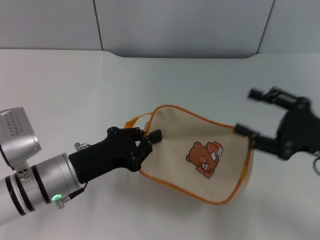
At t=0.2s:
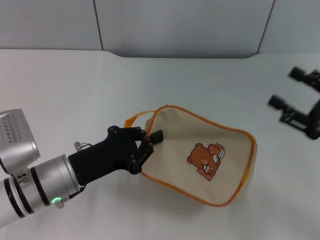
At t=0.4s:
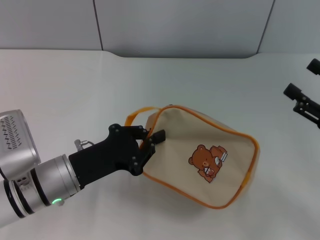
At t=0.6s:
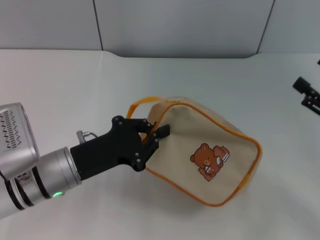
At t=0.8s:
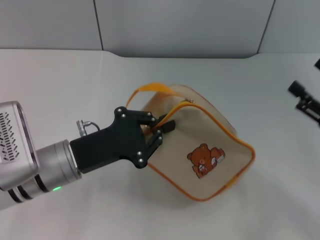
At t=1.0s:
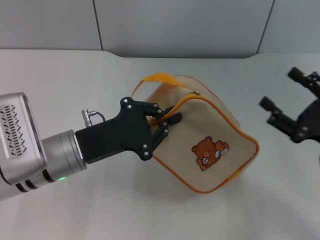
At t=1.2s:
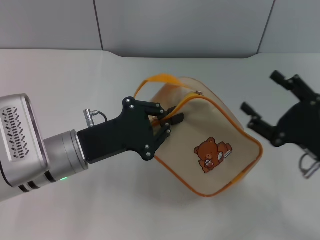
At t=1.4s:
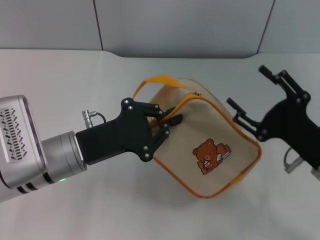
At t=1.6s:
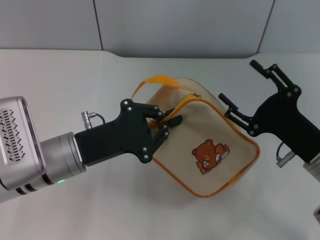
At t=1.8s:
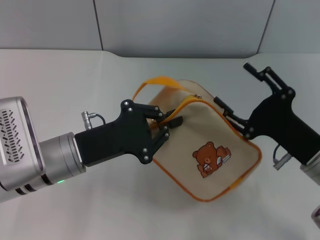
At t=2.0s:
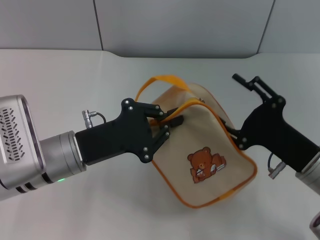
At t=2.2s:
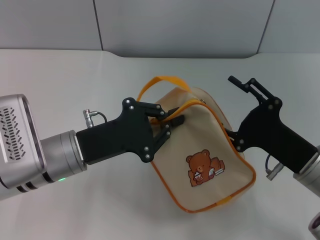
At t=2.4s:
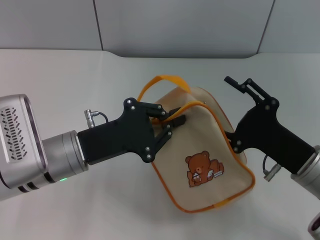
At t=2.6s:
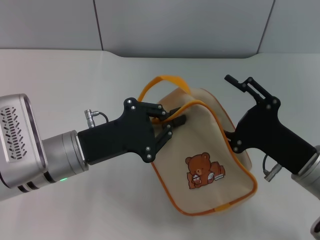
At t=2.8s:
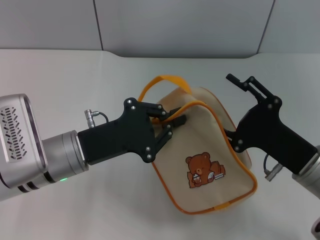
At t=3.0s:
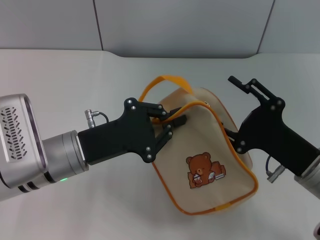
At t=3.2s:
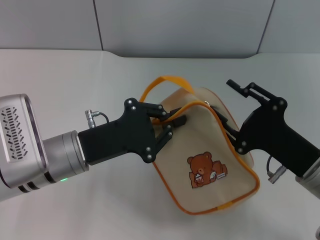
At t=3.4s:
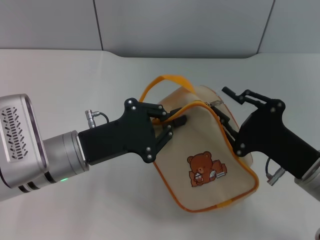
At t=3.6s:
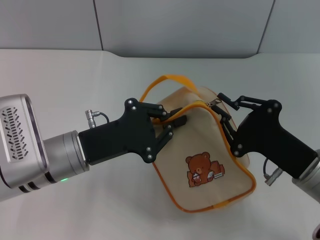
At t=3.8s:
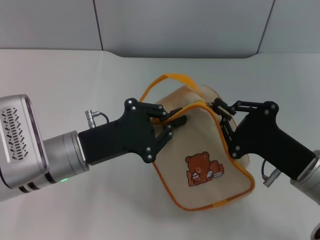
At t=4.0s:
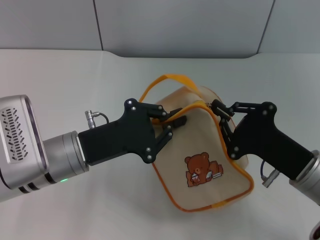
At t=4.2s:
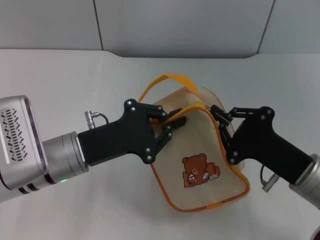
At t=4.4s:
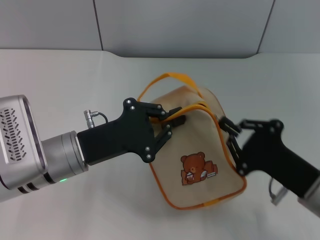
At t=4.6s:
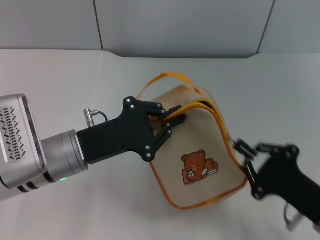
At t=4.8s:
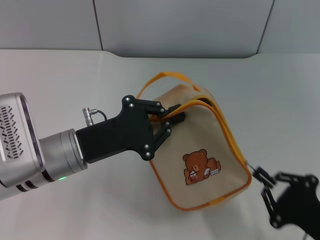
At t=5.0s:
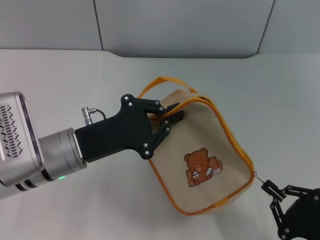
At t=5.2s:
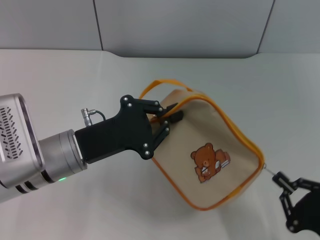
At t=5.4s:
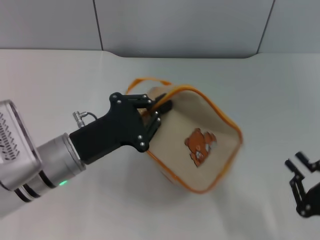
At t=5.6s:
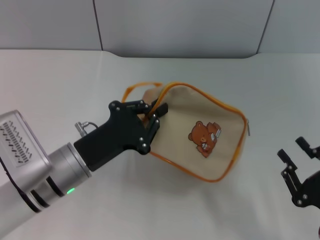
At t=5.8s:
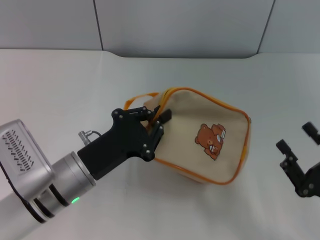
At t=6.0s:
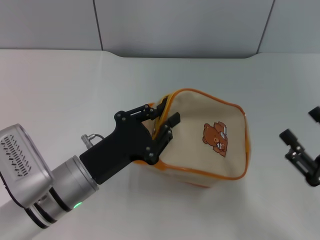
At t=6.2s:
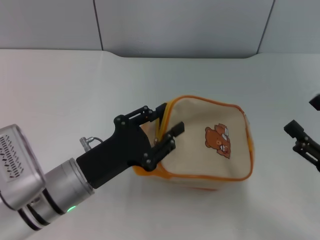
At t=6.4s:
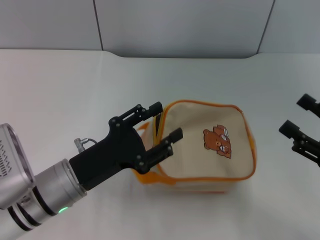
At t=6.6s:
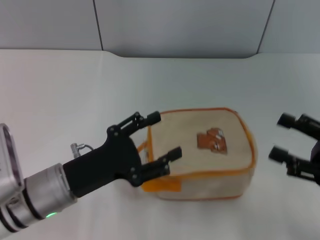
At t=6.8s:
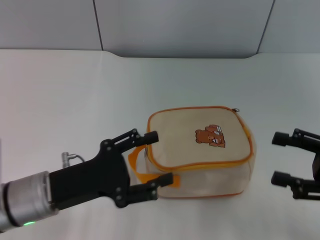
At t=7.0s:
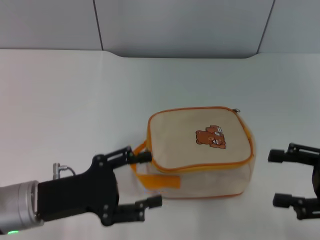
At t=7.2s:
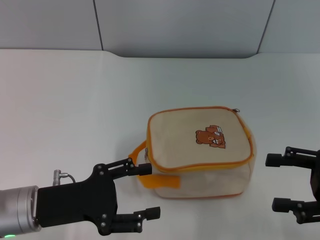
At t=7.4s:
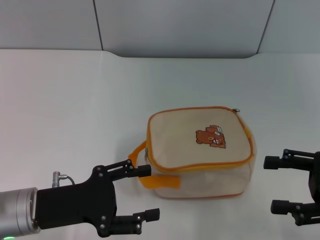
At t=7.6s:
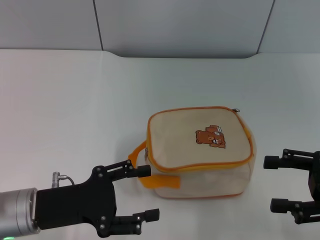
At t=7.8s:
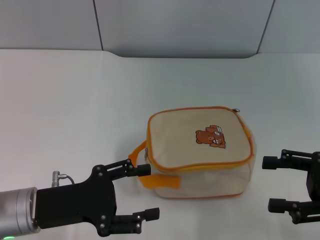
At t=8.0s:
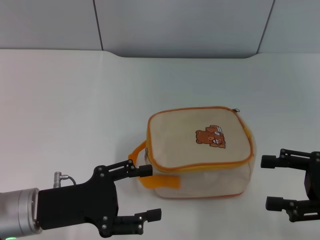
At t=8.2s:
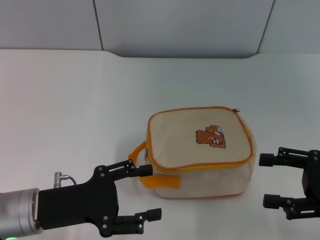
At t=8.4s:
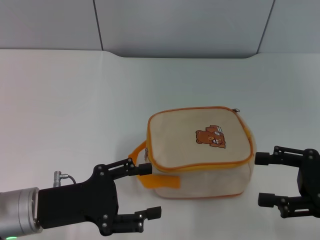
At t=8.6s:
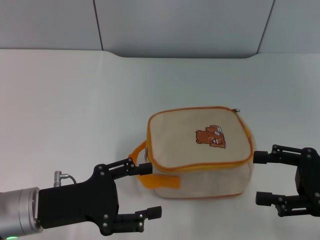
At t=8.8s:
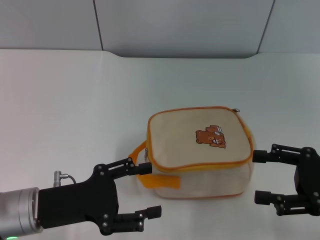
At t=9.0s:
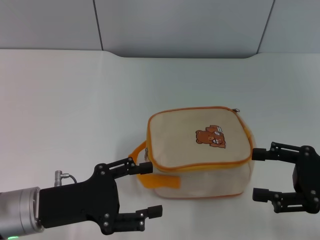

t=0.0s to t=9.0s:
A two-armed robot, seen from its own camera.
Step, t=1.8s to t=5.2s: Unzip the zipper of bag with right gripper.
Step, t=5.4s to t=6.6s: Place the bag on the table with left gripper.
t=0.0s to t=1.6s: The right gripper shifts about 5 cm to the left.
t=1.6s to t=3.0s: There are only small adjustments of the grippers.
t=3.0s to t=4.4s: The right gripper closes up.
t=4.4s to t=6.0s: The left gripper ends up about 5 cm from where it was. Meanwhile the right gripper heads to the right and backward, covering about 10 cm, and opens.
t=6.0s to t=7.6s: The left gripper moves to the left, approximately 5 cm, and opens its fingers. Meanwhile the right gripper heads upward and forward, covering roughly 10 cm, and opens.
t=7.6s to t=9.0s: The grippers move only a little.
